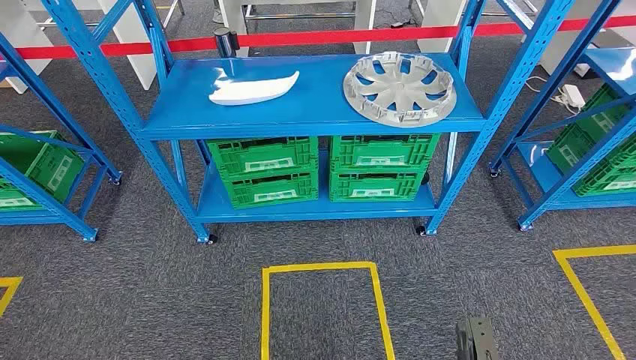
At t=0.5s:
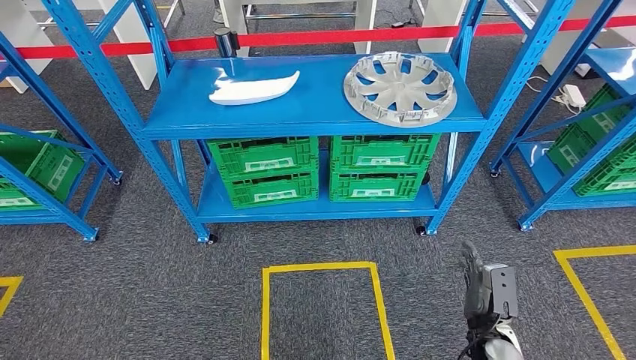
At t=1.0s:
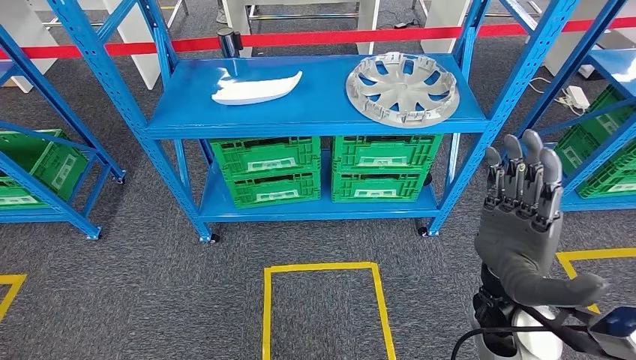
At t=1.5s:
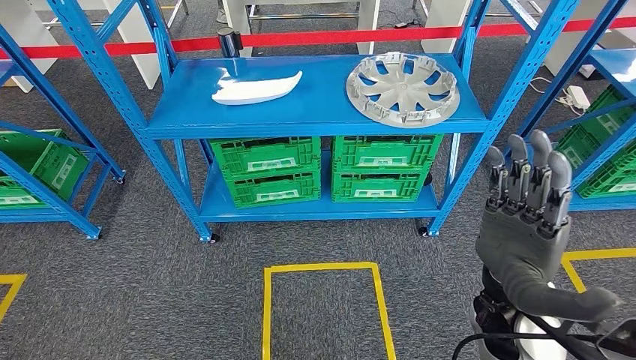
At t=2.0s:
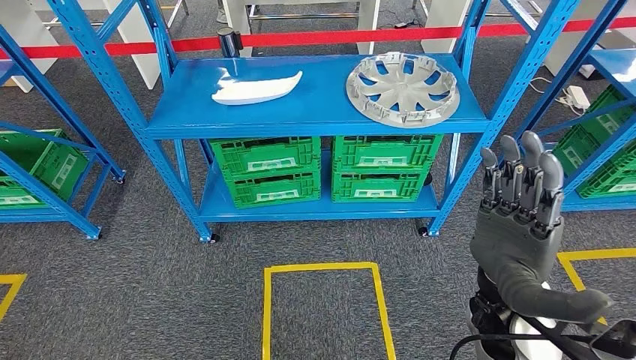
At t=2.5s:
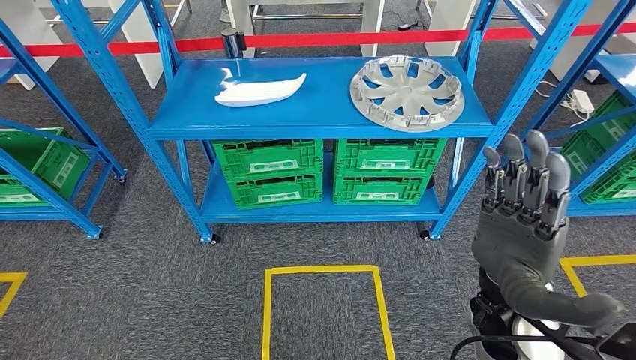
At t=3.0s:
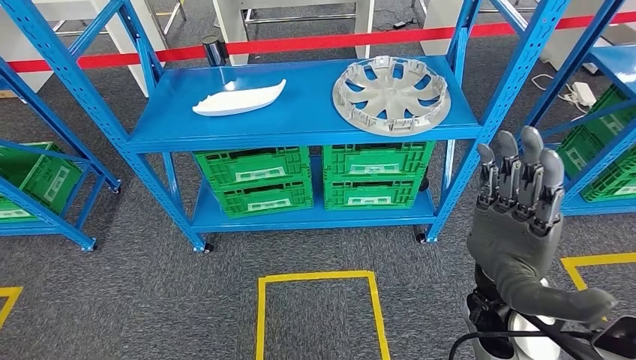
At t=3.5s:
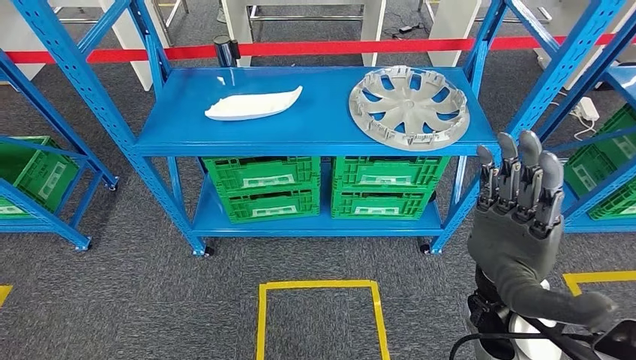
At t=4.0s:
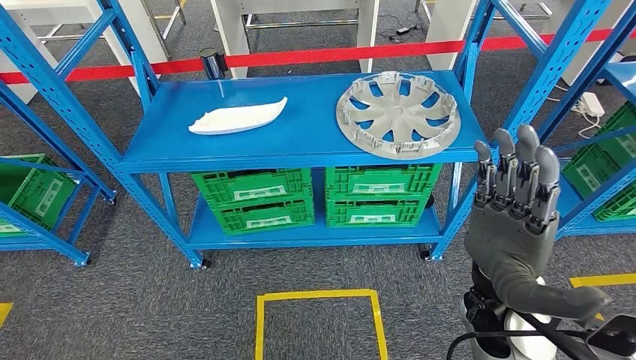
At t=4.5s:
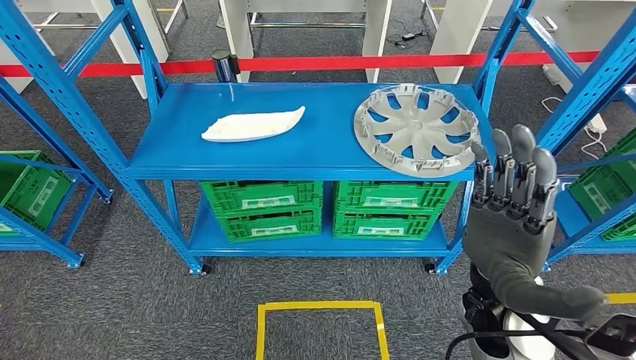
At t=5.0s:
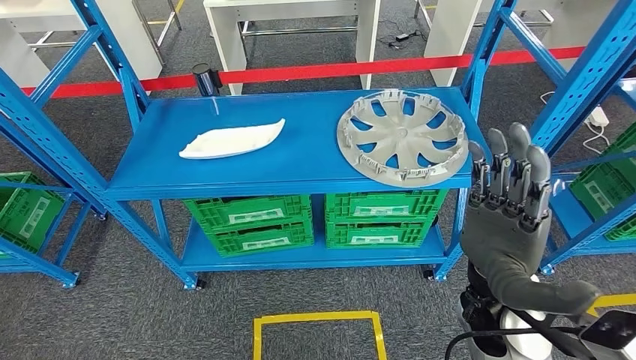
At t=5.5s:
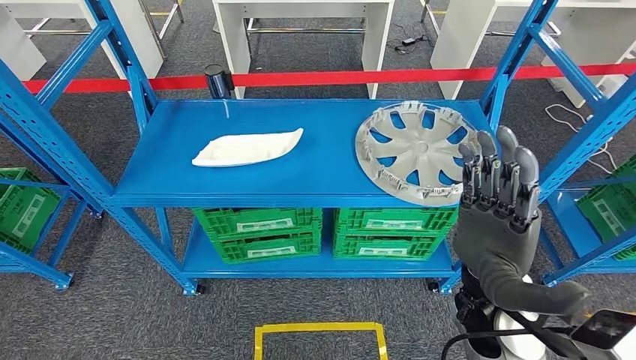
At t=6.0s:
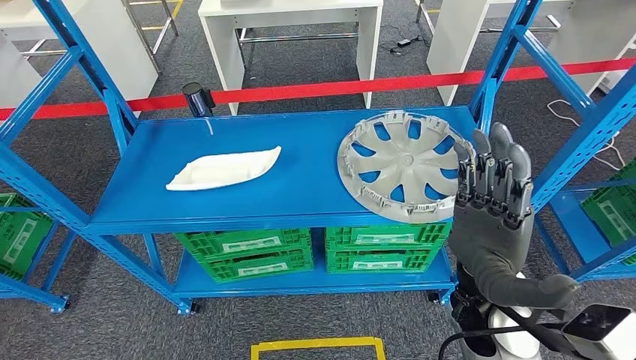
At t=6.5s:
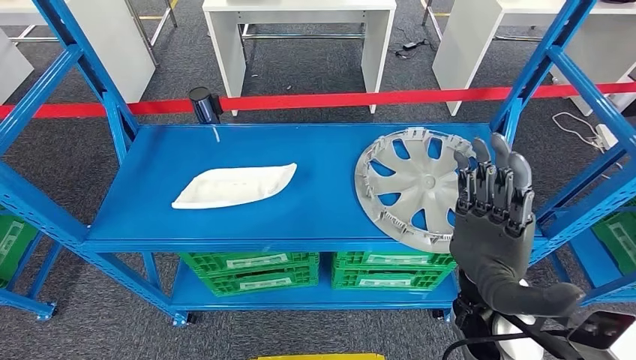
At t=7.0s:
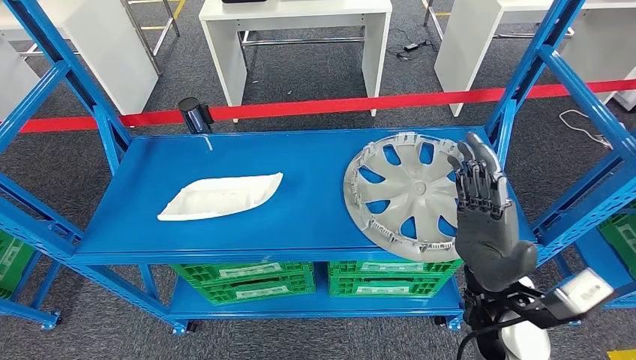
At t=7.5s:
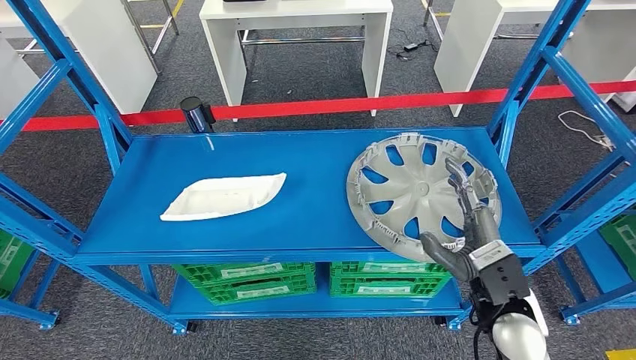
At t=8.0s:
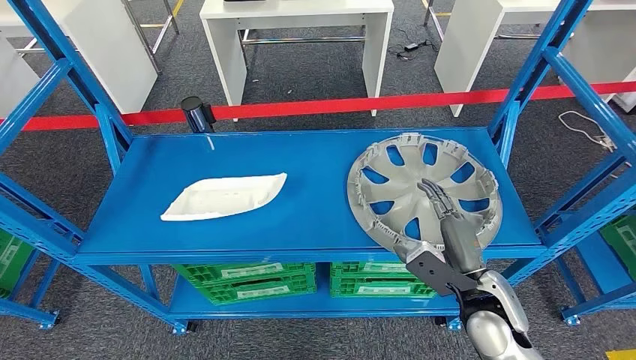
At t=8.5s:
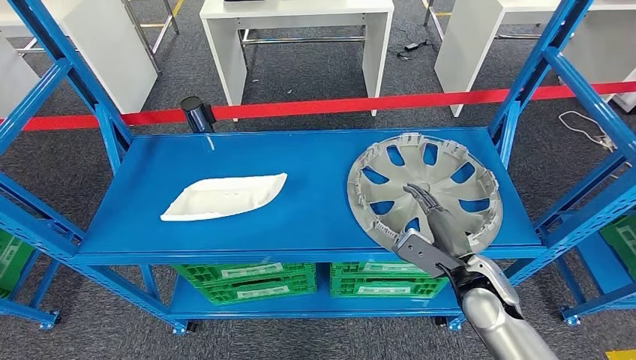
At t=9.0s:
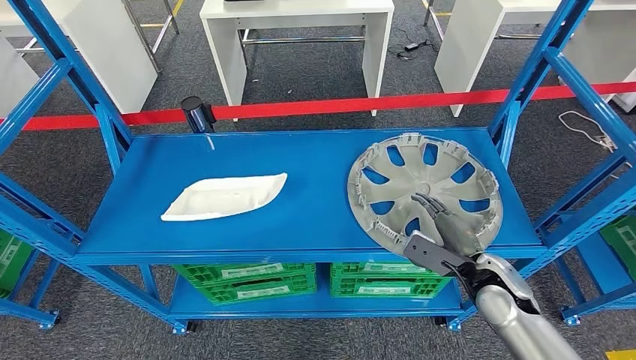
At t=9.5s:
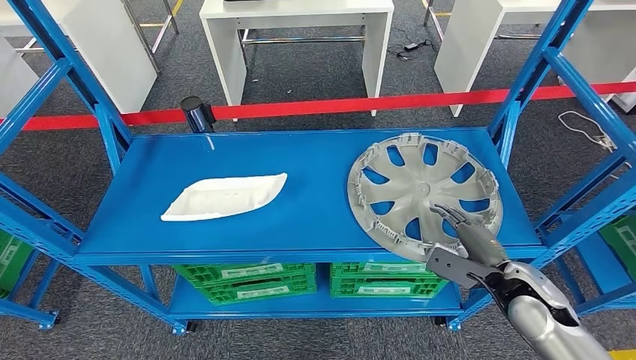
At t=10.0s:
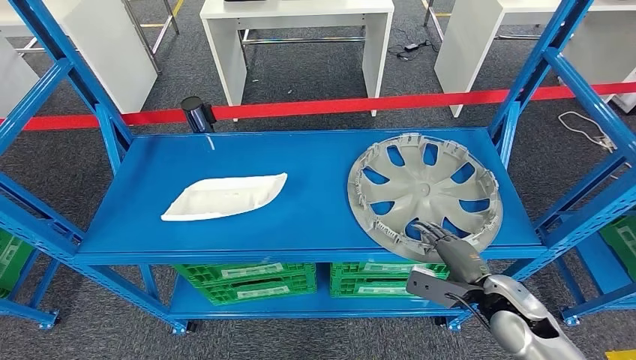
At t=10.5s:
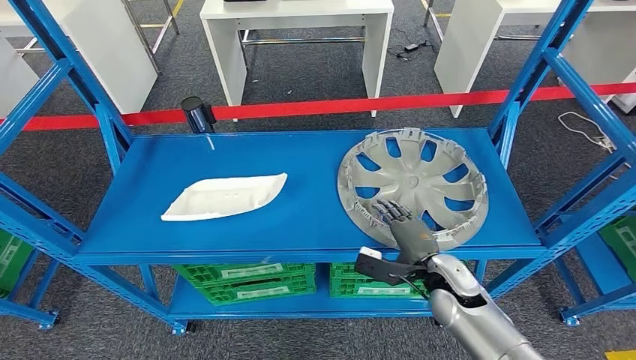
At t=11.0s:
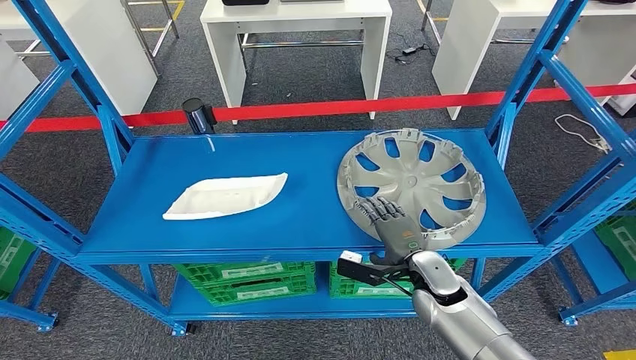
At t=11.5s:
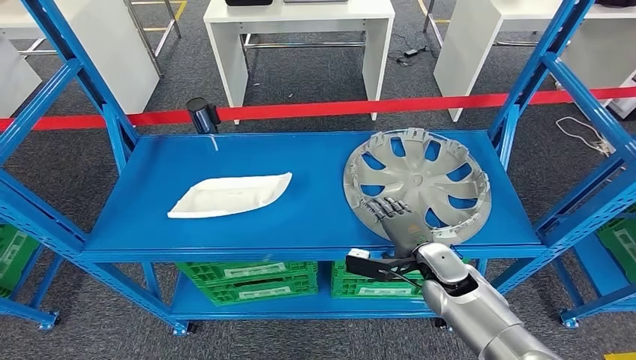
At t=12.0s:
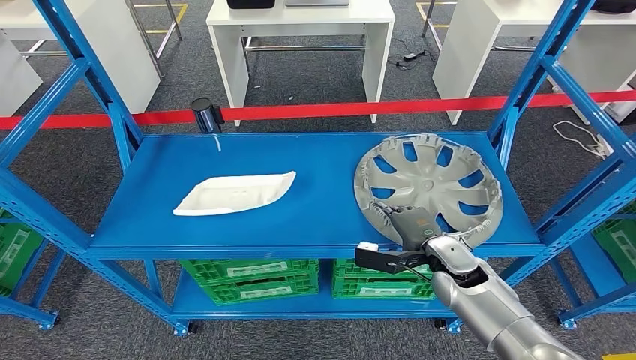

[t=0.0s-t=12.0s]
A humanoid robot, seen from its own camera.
t=8.0s to t=10.0s: The right hand shifts approximately 5 cm to the right.

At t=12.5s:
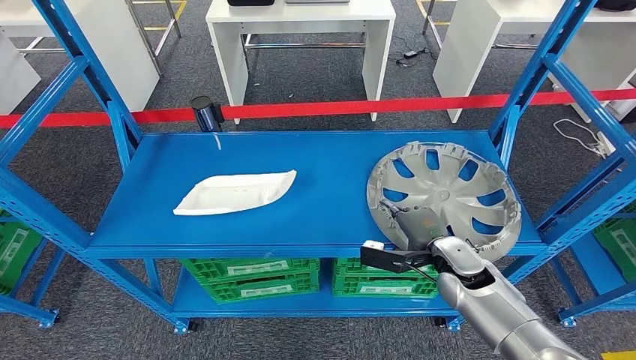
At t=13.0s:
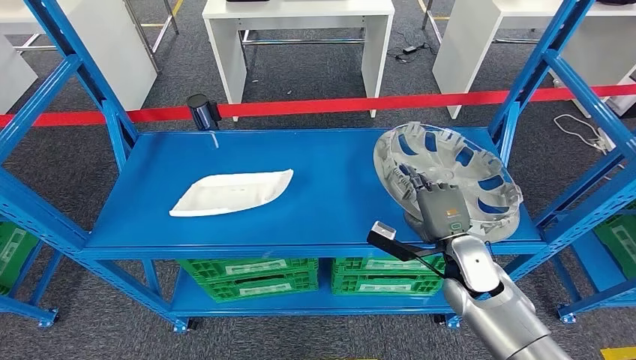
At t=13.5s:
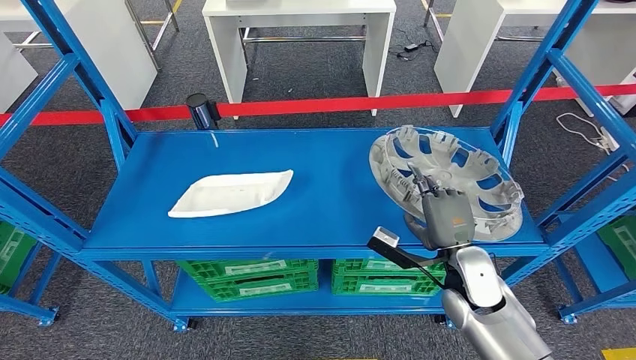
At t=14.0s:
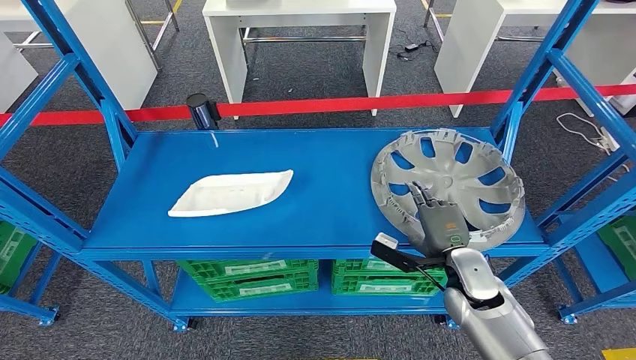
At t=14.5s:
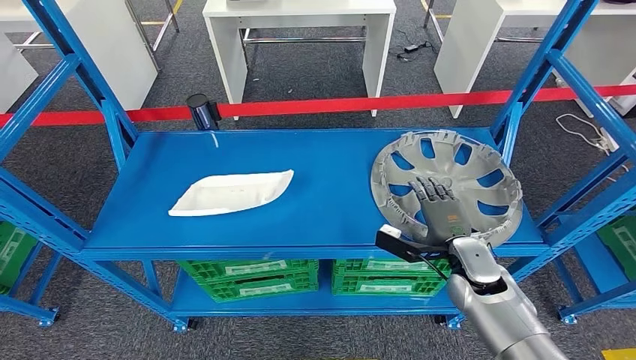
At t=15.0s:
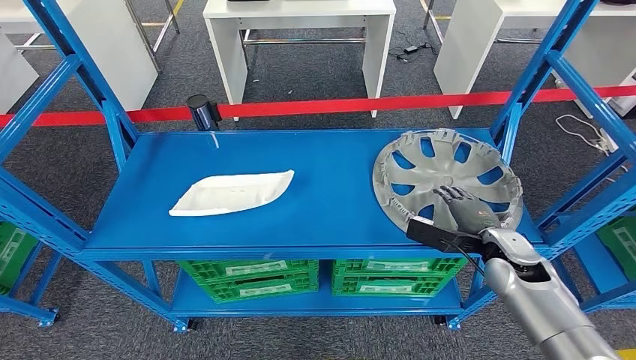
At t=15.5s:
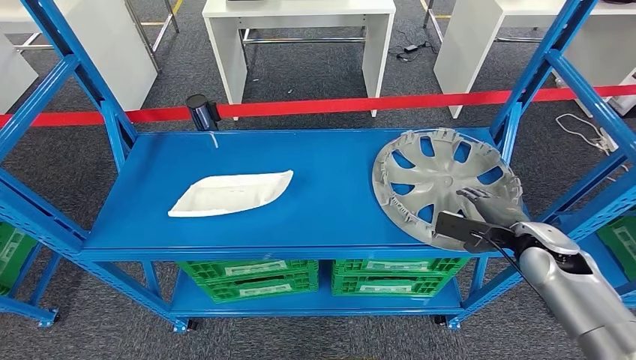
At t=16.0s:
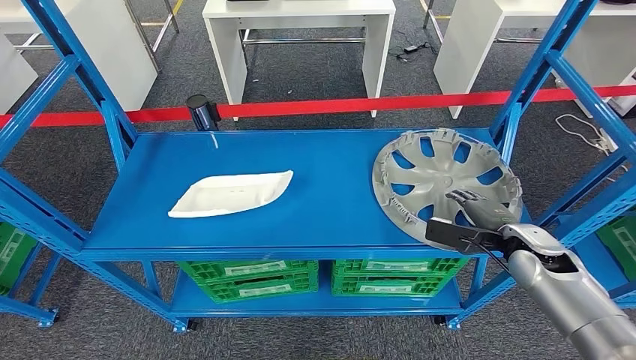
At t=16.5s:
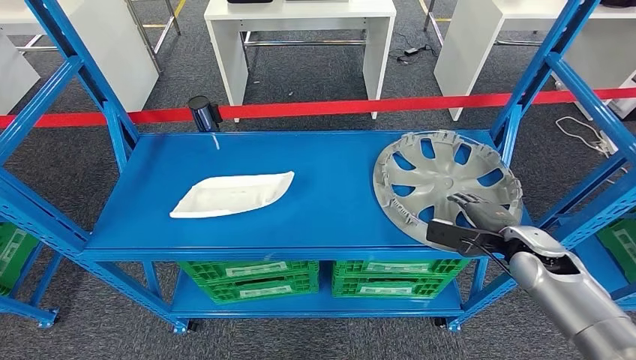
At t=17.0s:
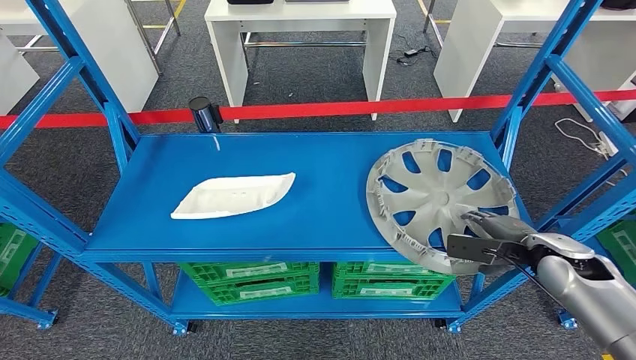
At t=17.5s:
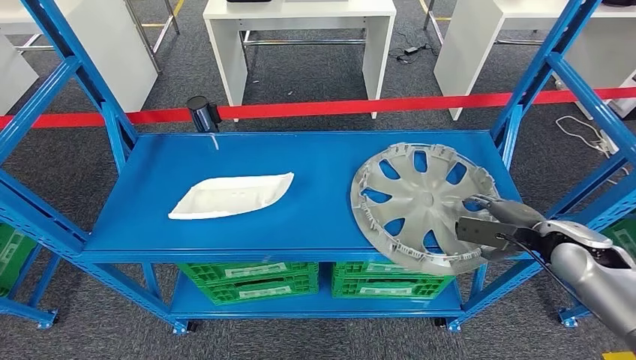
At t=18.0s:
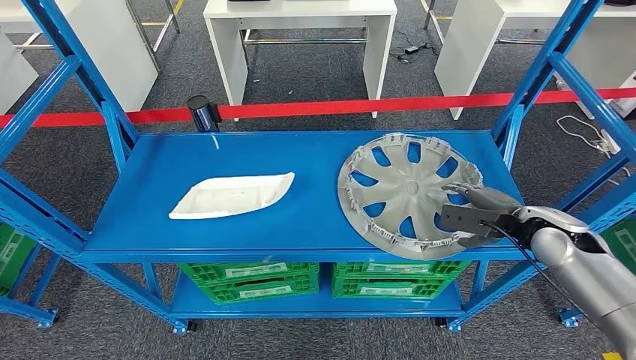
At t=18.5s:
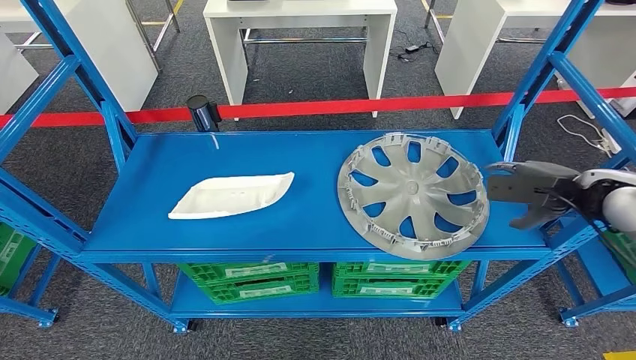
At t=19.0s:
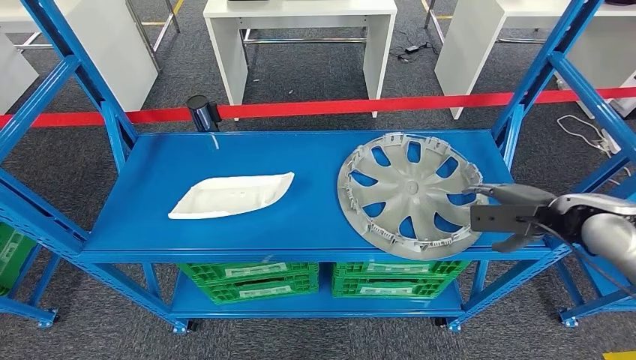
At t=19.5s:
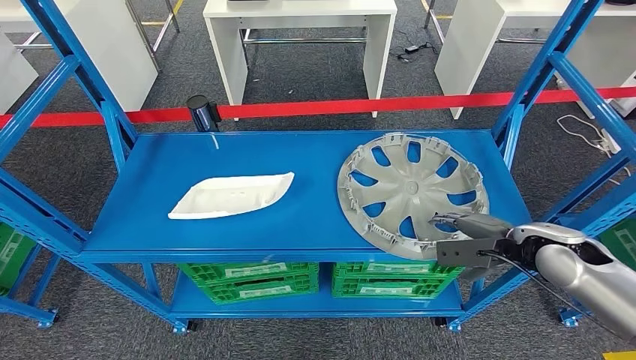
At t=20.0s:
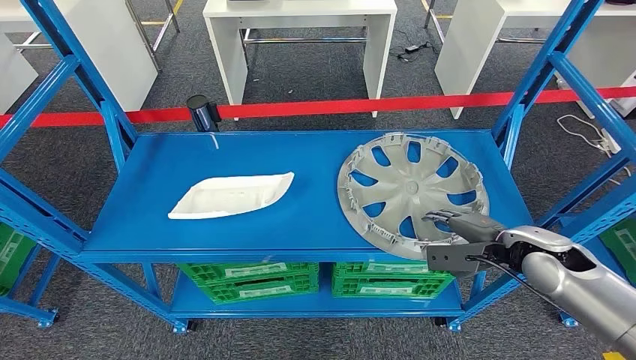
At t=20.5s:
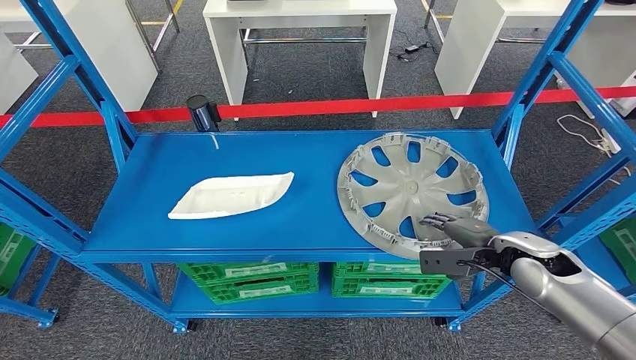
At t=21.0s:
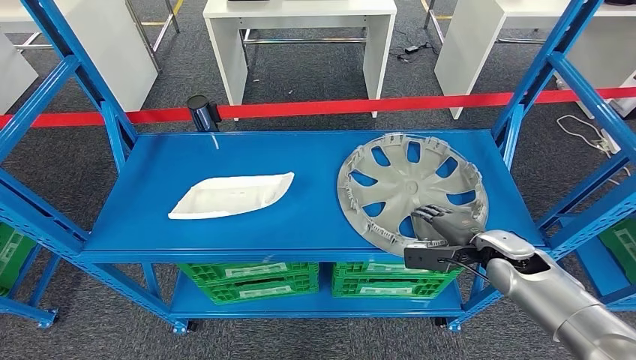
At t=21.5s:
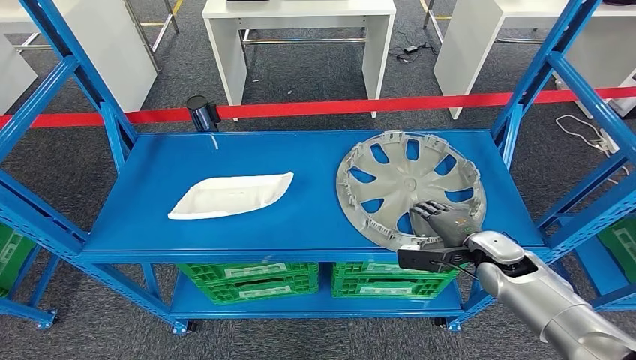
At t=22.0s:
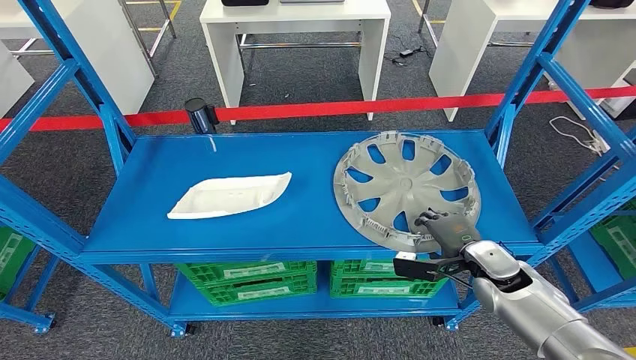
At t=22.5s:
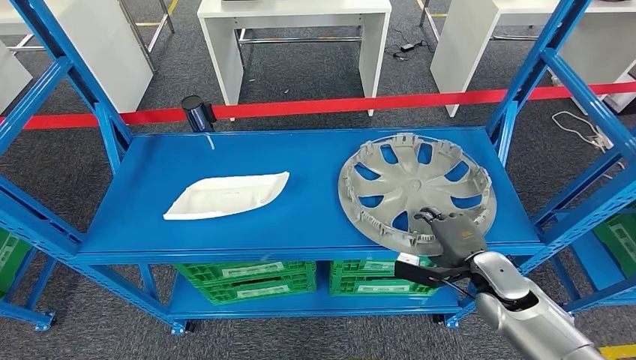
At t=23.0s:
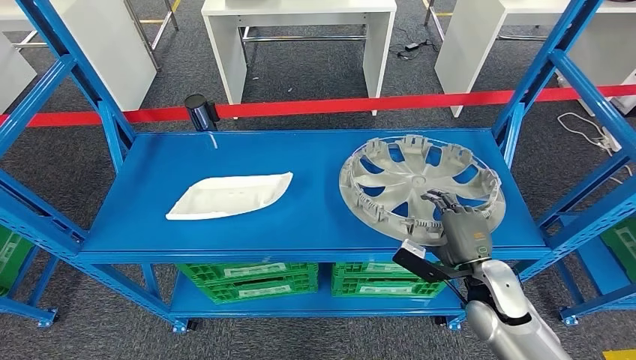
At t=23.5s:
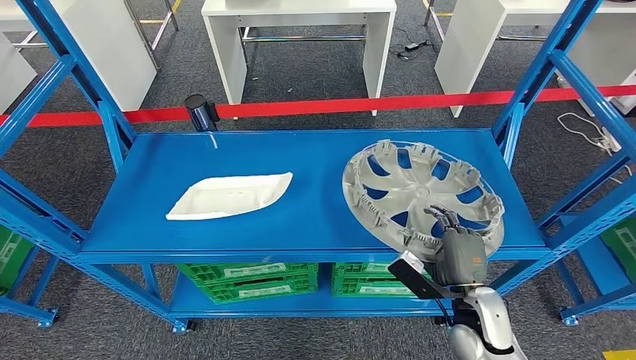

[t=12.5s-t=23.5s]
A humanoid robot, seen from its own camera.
t=14.5s to t=16.0s: The right hand is displaced to the right by some 10 cm.
t=18.0s to t=20.0s: The right hand travels upward and back again, approximately 10 cm each way.
t=20.0s to t=21.5s: The right hand is displaced downward by some 5 cm.
t=21.5s to t=23.5s: The right hand goes approximately 10 cm backward and to the left.
